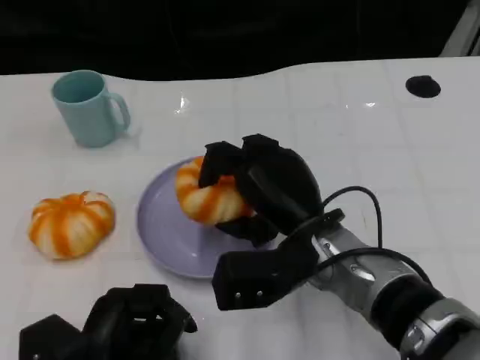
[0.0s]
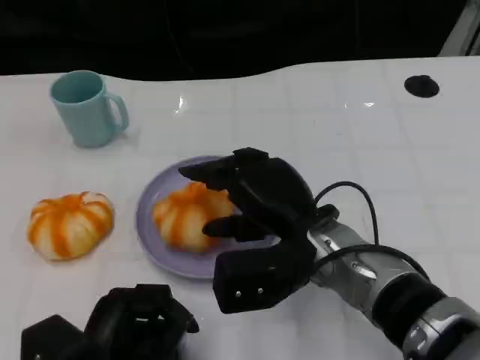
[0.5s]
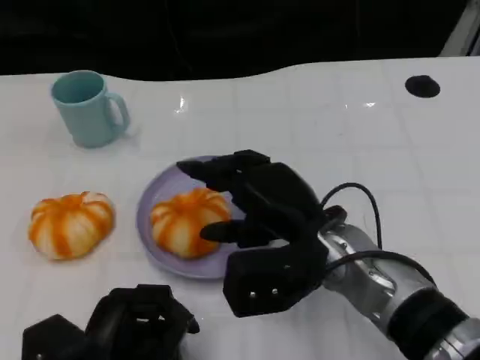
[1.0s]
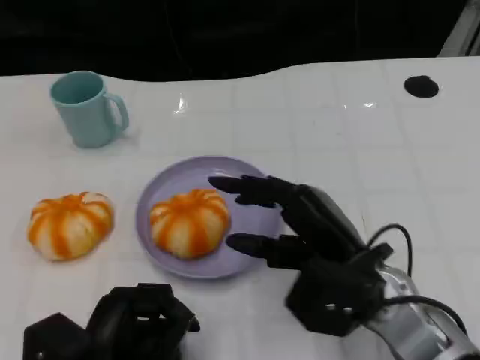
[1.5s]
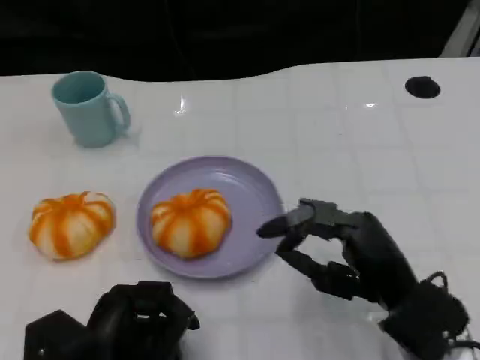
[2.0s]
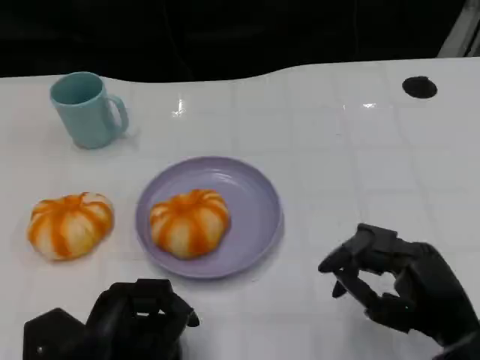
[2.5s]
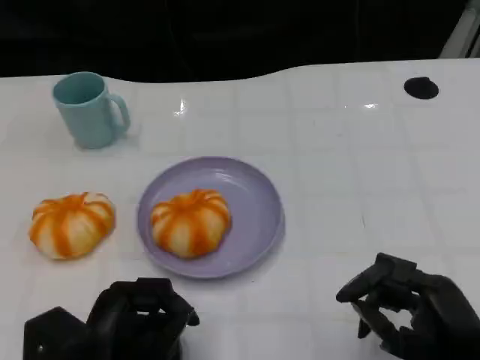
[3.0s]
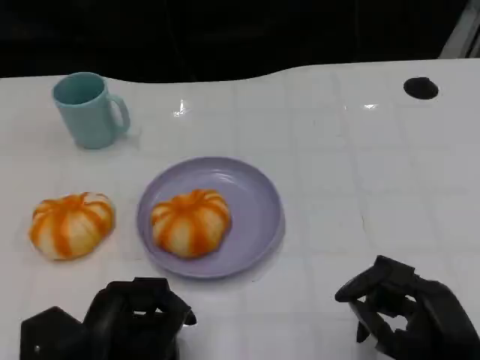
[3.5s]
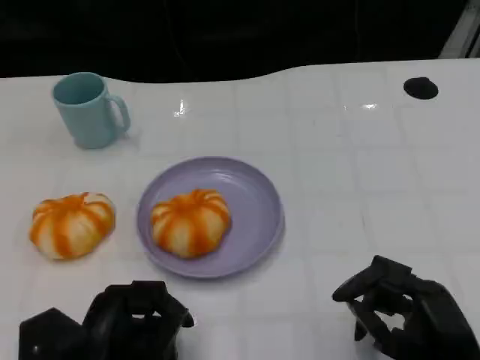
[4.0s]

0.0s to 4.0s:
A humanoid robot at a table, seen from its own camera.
Task of the whole recording: Grasp the bread from the table and place it into the plate.
0.0s to 2.0s: The right hand goes some 10 cm to the right and backward.
2.0s to 4.0s: The right hand shifts roughly 5 cm backward.
